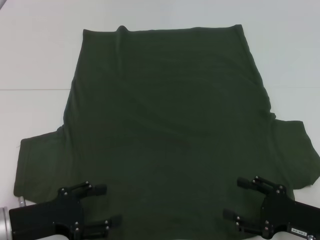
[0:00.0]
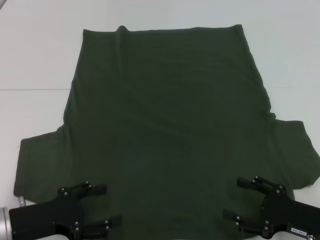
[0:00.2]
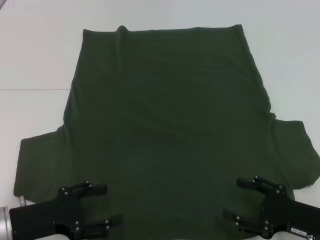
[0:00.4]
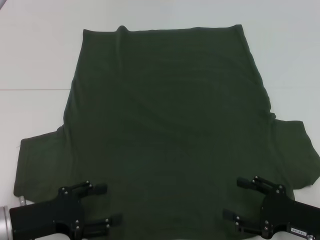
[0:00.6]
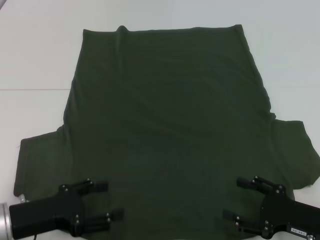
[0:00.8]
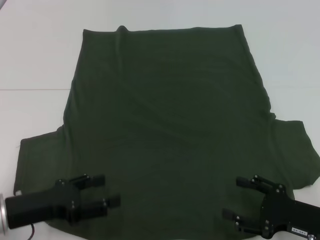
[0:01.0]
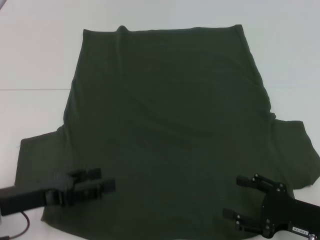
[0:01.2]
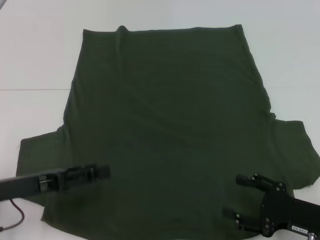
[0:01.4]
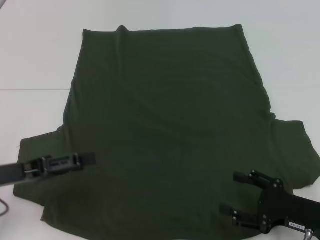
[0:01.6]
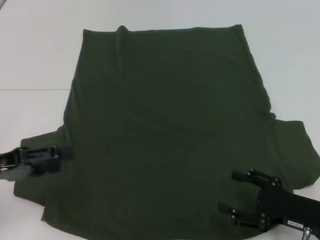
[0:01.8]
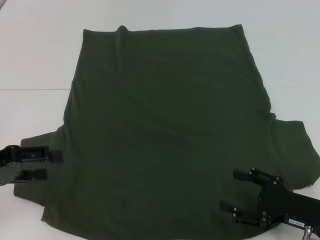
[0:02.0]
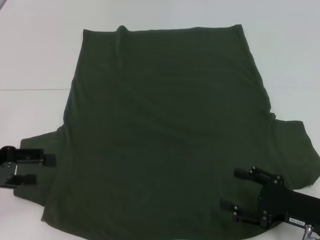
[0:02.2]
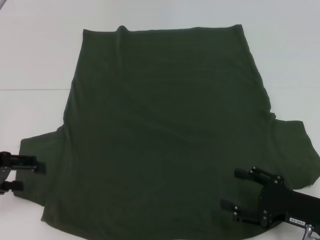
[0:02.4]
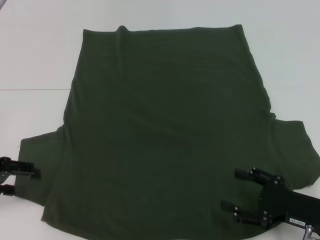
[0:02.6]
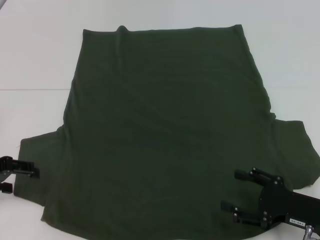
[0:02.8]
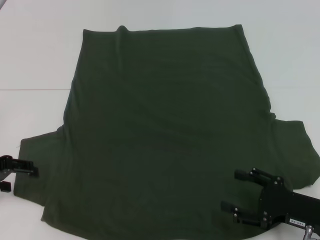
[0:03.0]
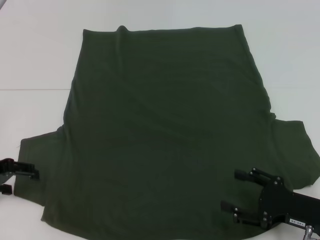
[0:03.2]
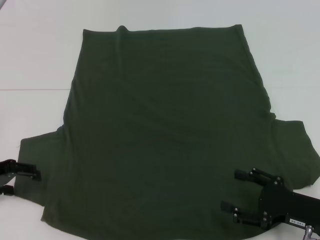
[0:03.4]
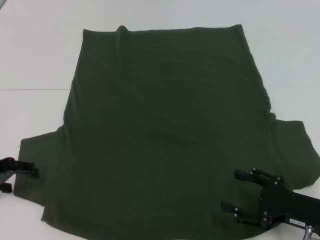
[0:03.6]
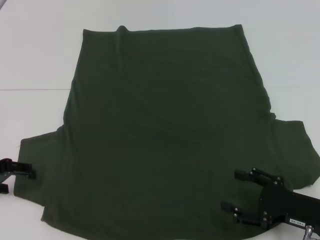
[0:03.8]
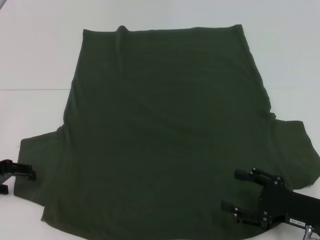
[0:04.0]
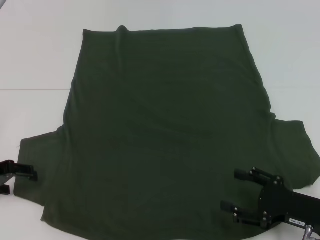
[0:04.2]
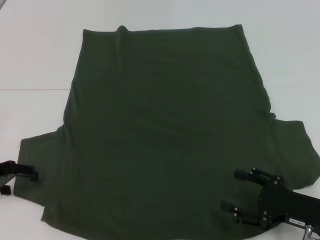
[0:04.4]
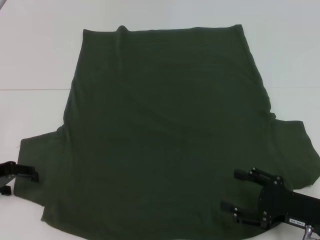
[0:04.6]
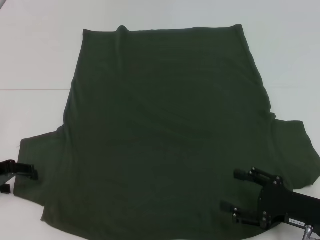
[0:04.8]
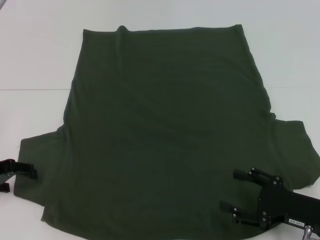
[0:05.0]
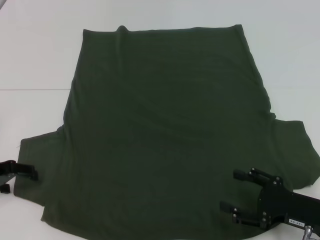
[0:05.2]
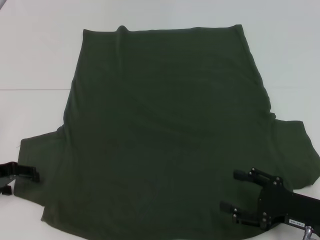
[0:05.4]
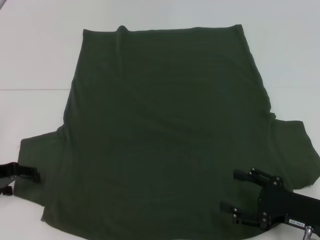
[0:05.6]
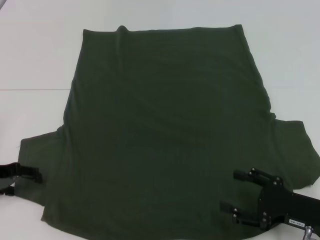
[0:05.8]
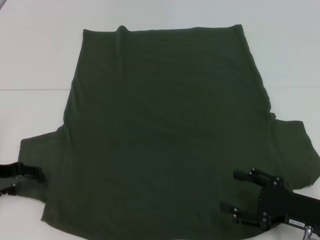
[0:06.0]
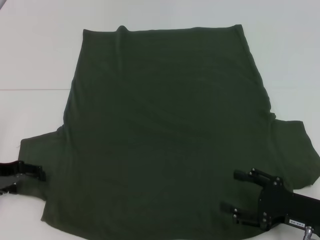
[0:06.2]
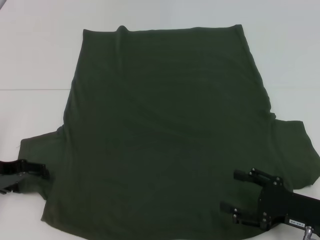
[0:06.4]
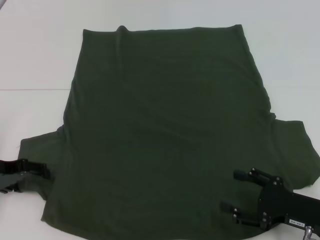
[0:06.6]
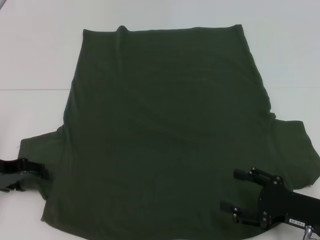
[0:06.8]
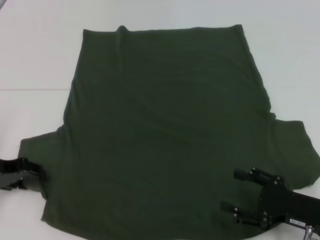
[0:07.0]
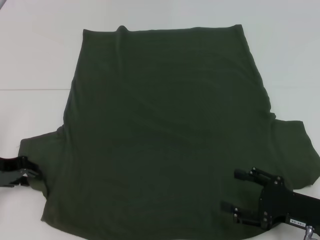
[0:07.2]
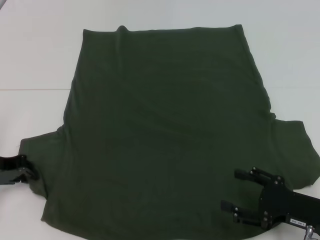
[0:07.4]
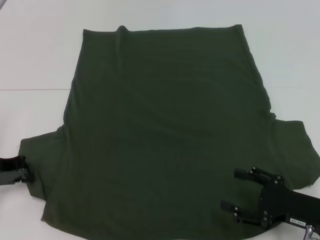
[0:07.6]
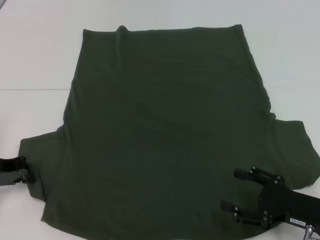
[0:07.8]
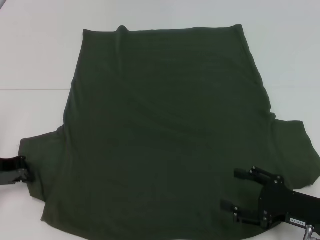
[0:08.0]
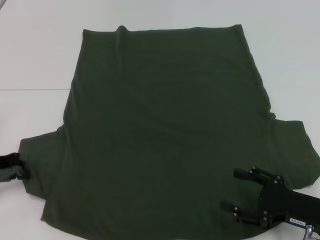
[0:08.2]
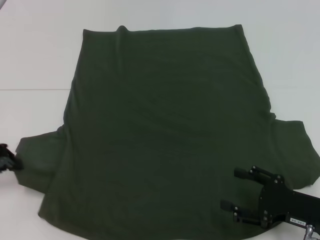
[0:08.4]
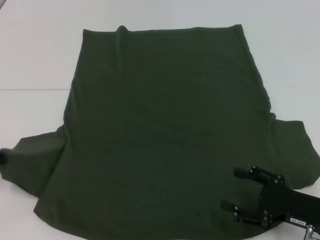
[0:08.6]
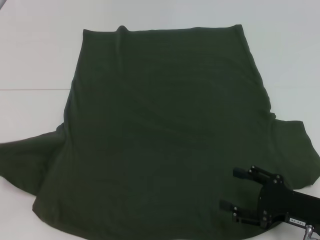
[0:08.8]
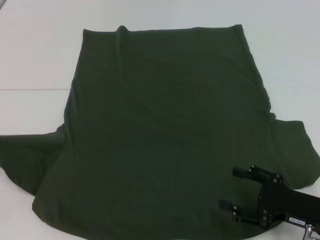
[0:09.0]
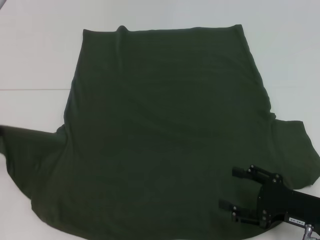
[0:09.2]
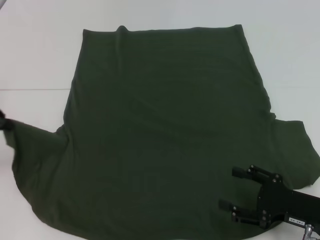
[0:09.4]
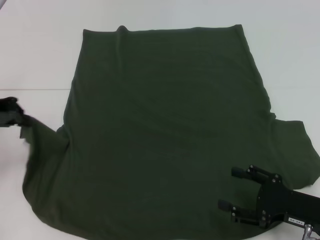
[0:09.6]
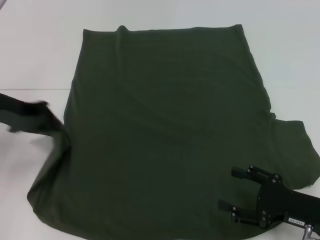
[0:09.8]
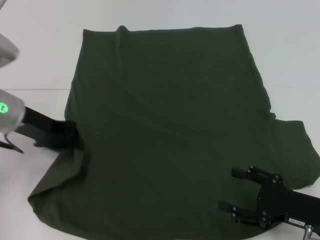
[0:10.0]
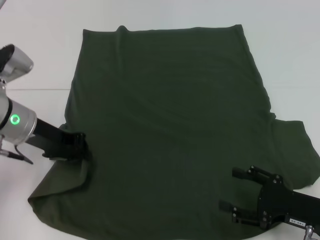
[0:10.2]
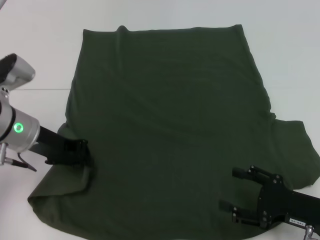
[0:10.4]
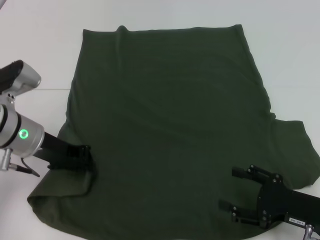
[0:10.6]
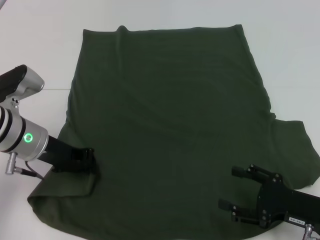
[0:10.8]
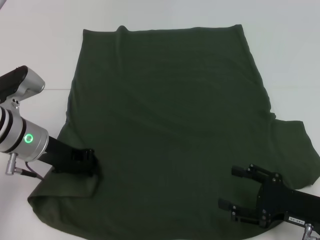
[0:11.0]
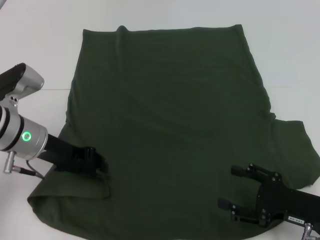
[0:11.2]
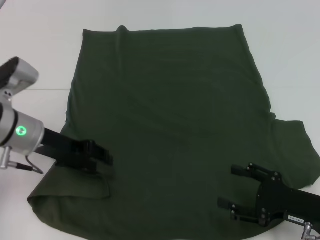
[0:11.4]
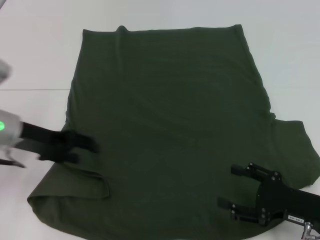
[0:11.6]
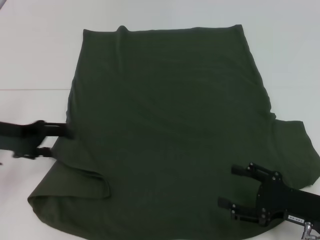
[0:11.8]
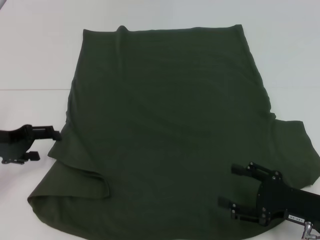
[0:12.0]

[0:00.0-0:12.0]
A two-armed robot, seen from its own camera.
0:00.0 to 0:01.6: The left gripper travels upward by approximately 5 cm.
0:01.6 to 0:03.0: The left gripper shifts by some 5 cm.
0:04.4 to 0:06.0: Both grippers stay put.
0:06.0 to 0:07.6: The left gripper closes up.
0:07.6 to 0:09.0: The left gripper is displaced upward and to the left by roughly 10 cm.
0:09.0 to 0:10.4: The left gripper is displaced to the right by some 15 cm.
0:10.4 to 0:12.0: The left gripper moves to the left, about 10 cm, and opens its fingers.

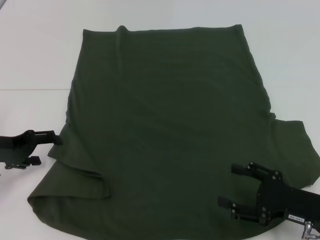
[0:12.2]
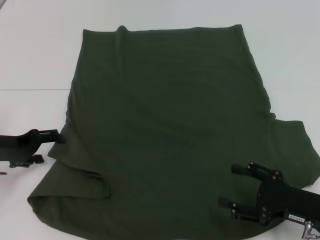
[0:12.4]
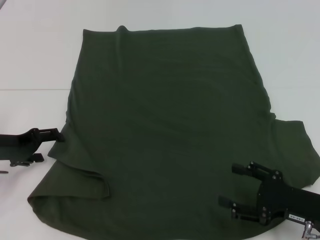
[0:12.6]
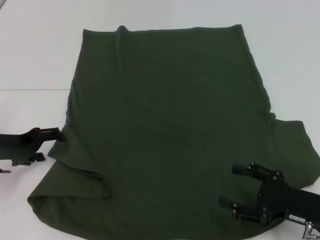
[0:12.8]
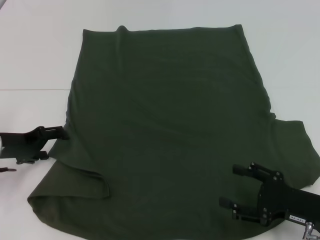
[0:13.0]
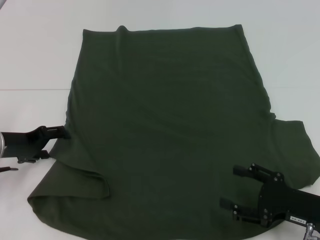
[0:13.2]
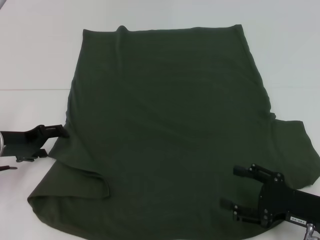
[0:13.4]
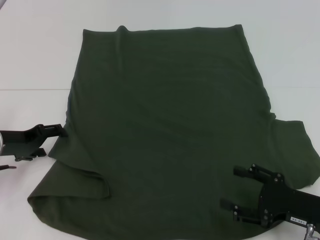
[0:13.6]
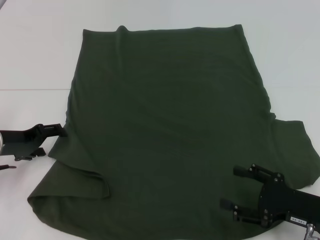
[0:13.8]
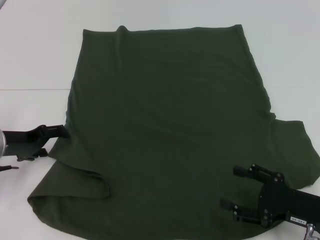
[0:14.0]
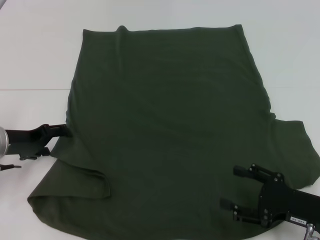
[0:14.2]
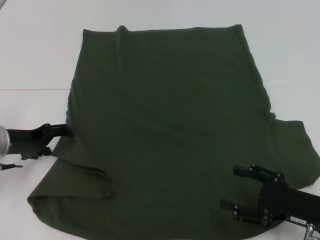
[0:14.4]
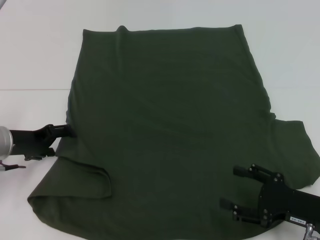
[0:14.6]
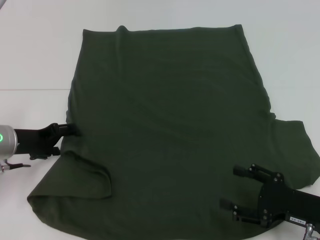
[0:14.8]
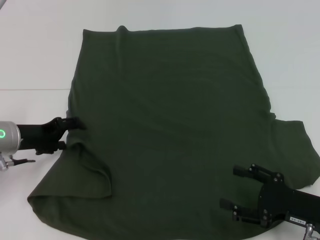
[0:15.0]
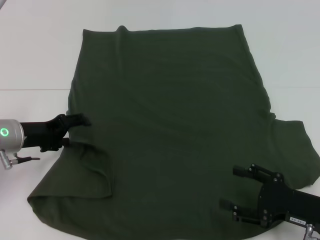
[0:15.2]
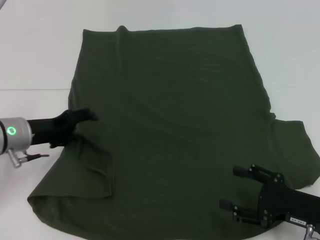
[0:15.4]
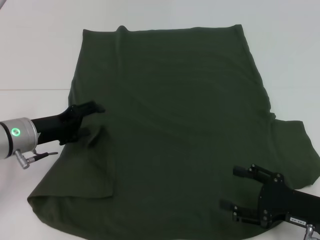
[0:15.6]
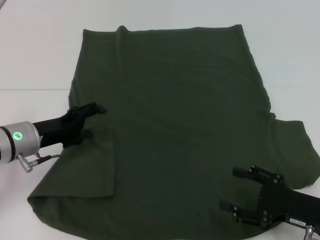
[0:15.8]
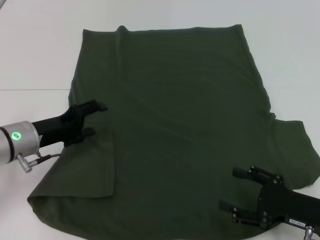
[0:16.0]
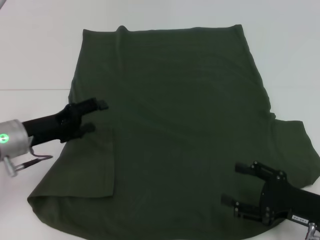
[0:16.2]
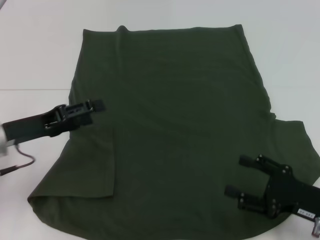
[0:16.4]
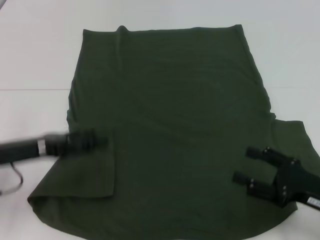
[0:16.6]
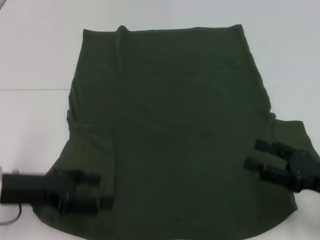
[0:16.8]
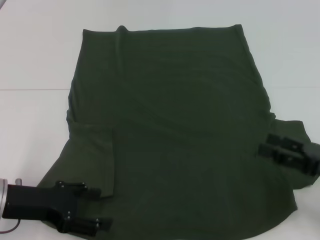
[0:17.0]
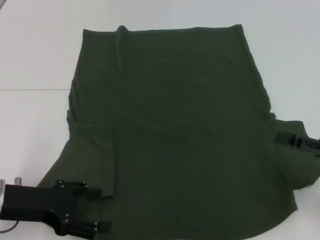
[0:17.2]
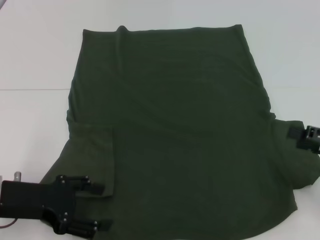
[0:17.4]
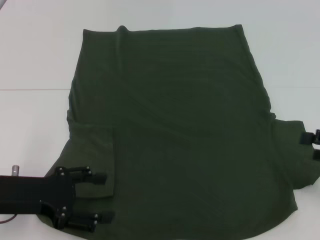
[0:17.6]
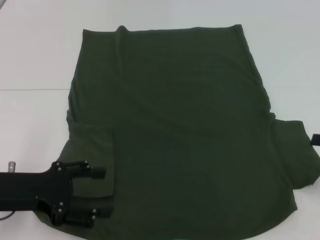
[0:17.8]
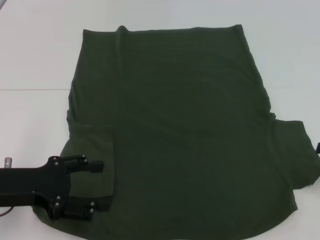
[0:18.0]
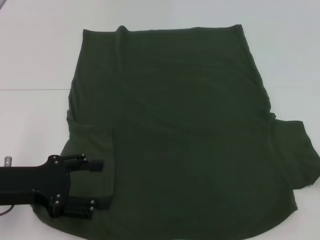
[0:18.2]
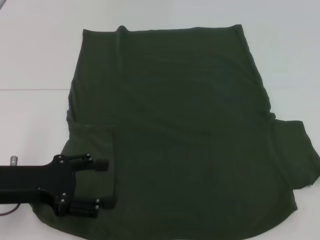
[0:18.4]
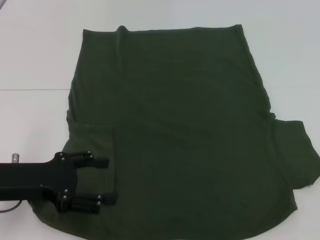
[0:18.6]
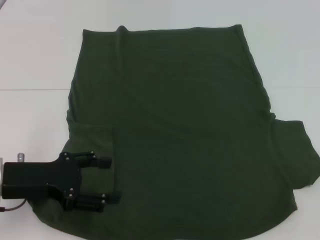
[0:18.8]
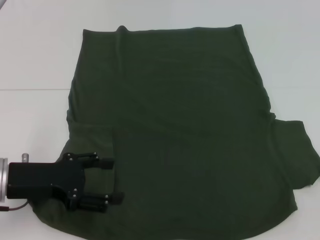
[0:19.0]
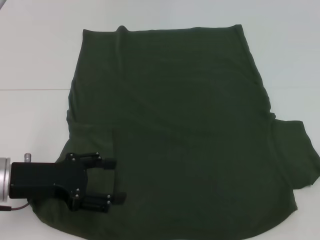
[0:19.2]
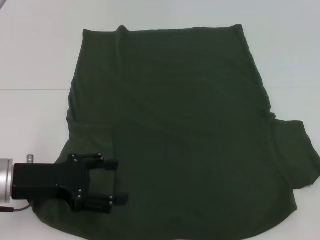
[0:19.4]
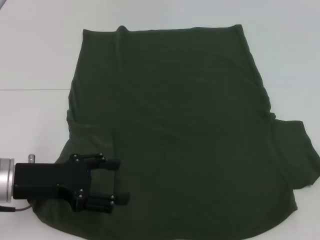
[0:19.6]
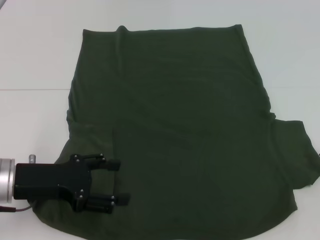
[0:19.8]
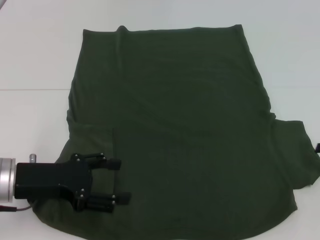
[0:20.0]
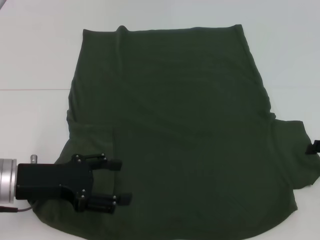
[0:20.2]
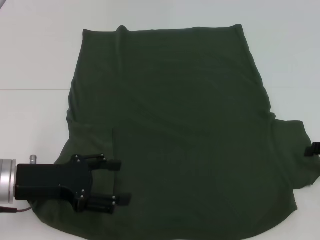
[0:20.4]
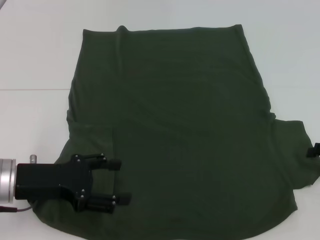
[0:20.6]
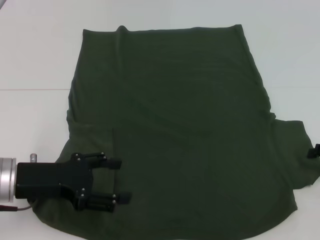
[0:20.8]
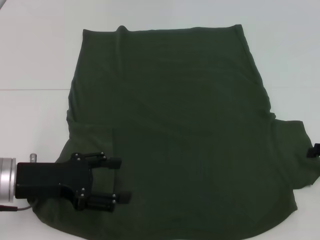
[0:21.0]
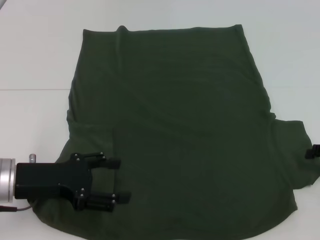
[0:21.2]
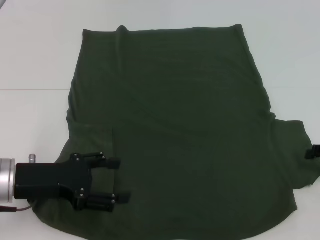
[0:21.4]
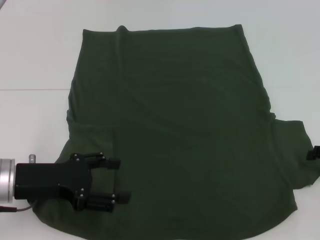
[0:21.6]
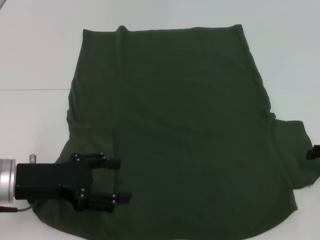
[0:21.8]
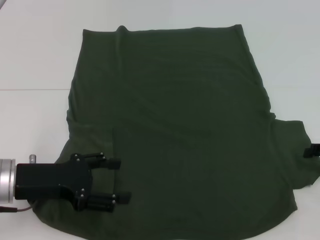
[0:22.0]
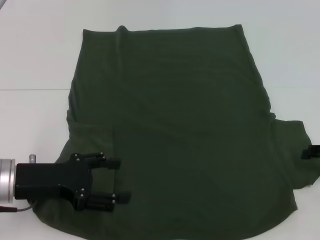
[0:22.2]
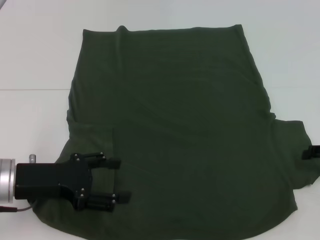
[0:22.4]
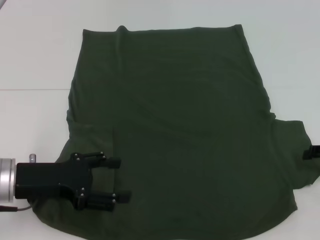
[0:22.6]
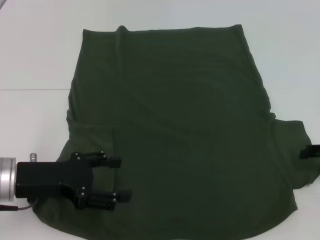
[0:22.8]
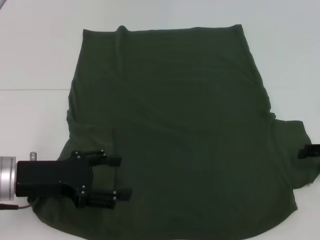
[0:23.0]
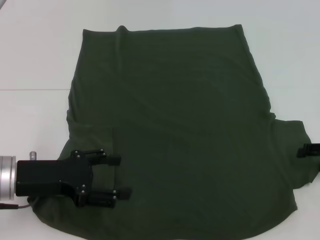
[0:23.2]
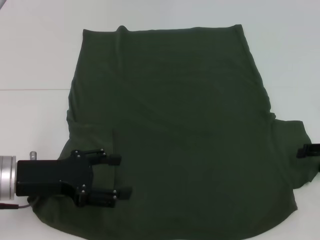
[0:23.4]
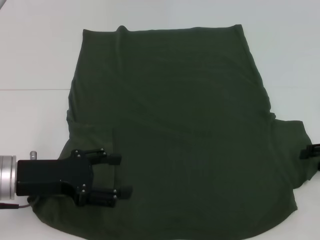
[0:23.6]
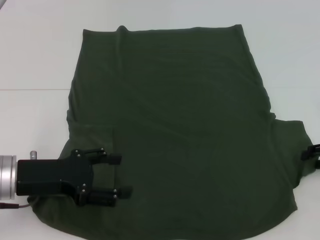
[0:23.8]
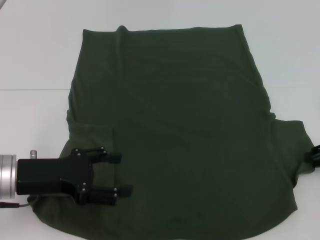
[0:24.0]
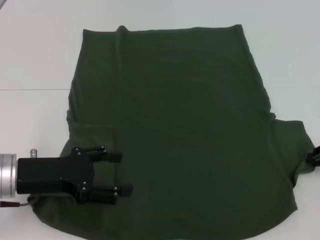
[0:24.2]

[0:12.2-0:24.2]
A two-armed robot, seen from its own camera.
Step, 0:12.2 to 0:16.2: Fold the bottom left sleeve with your left hand.
0:12.2 to 0:15.2: There are only small adjustments of the grippers.
0:15.2 to 0:16.6: The left gripper travels backward by some 5 cm.
0:16.6 to 0:18.2: The right gripper travels to the right and upward by about 15 cm.
0:18.2 to 0:19.8: The grippers stay close to where they were, moving slightly.
0:21.2 to 0:22.6: Neither gripper changes place.
0:22.6 to 0:24.2: The right gripper closes its fingers.
